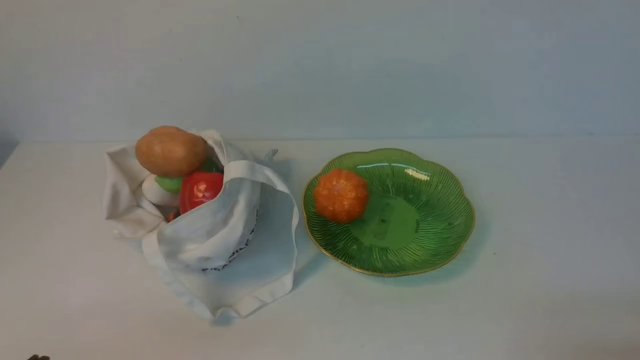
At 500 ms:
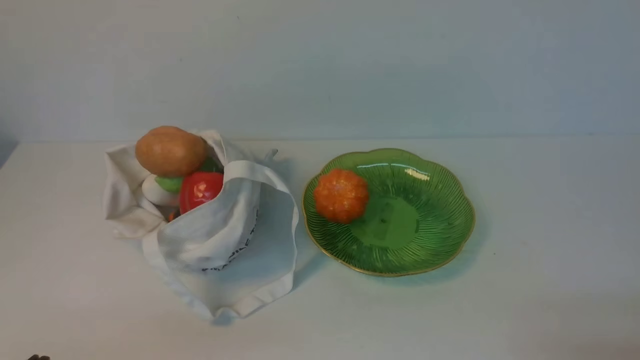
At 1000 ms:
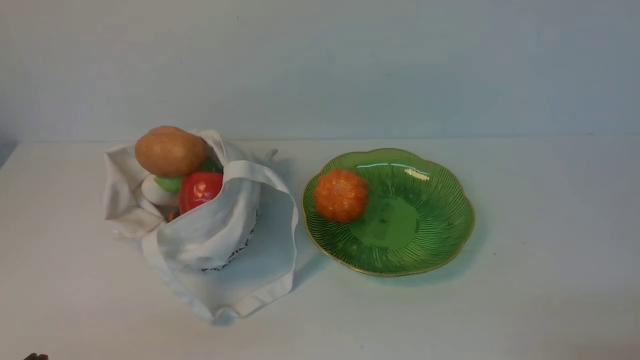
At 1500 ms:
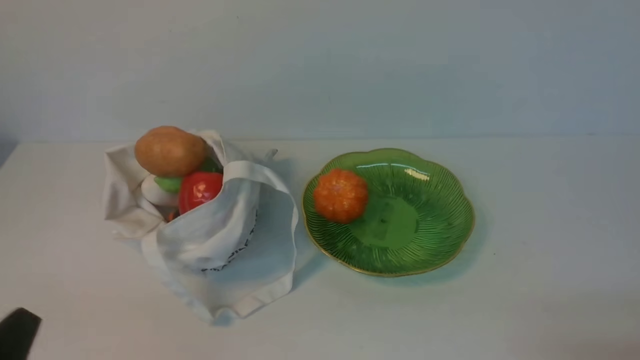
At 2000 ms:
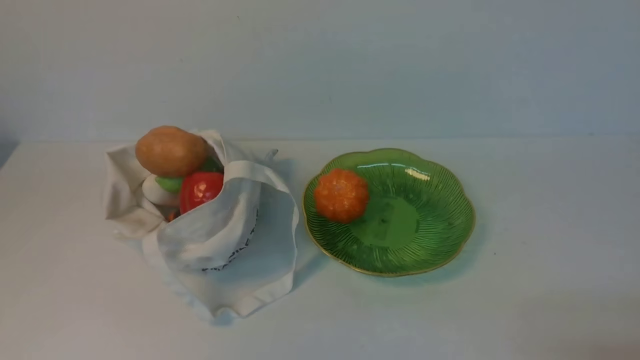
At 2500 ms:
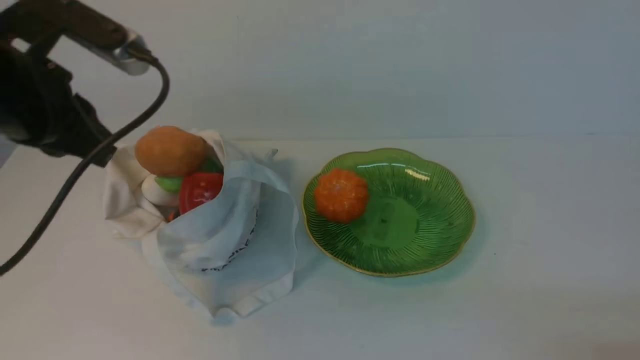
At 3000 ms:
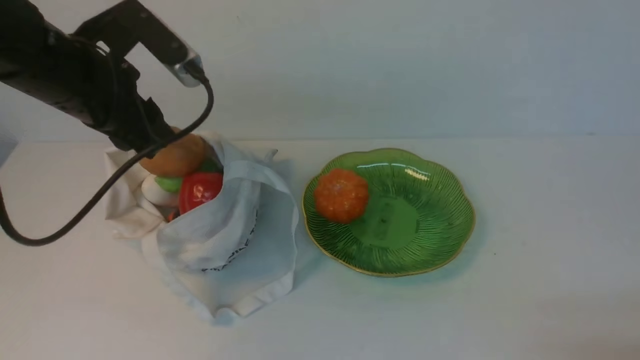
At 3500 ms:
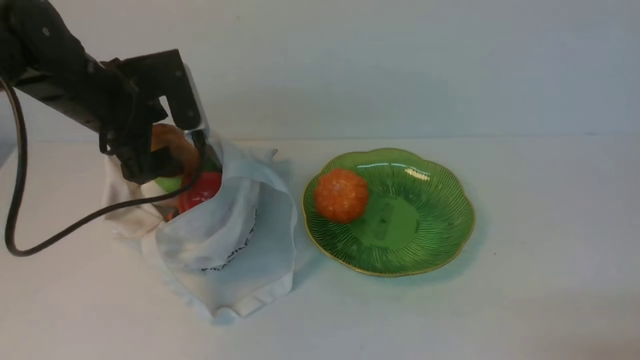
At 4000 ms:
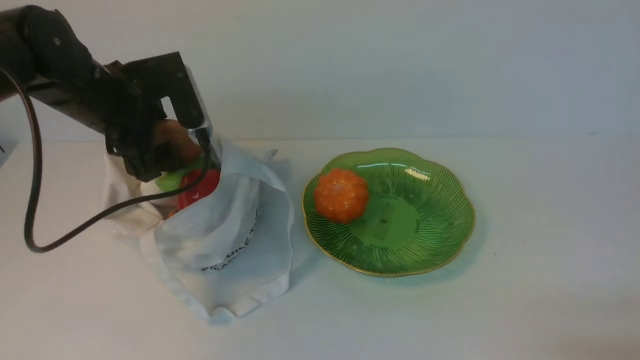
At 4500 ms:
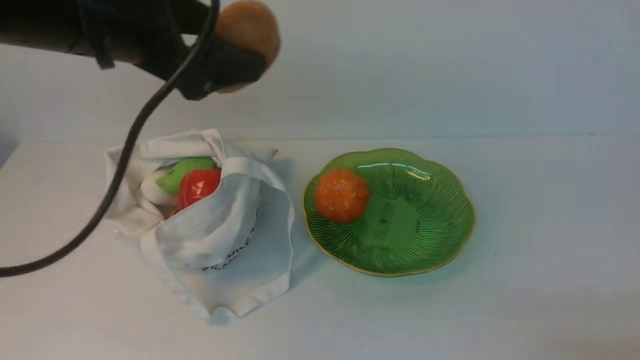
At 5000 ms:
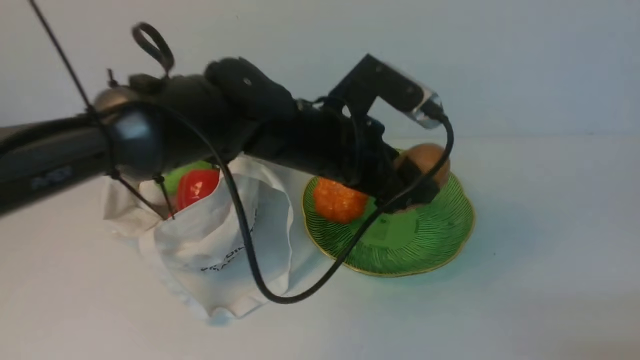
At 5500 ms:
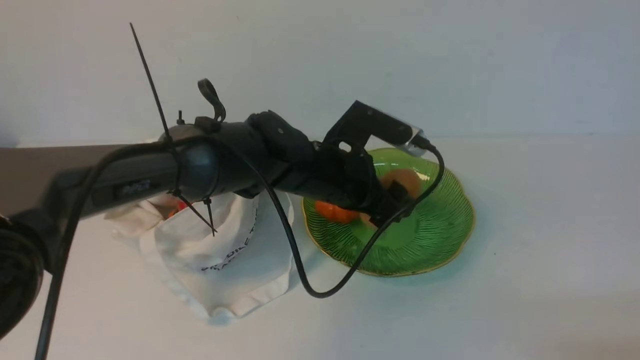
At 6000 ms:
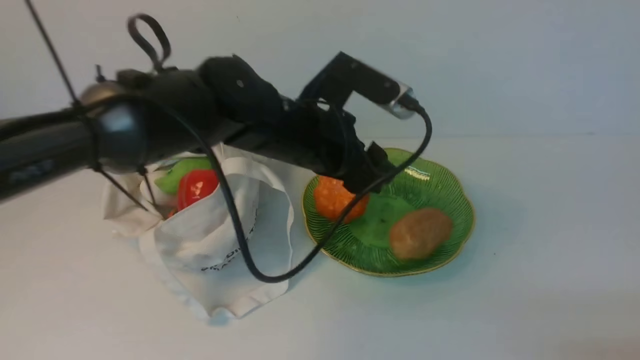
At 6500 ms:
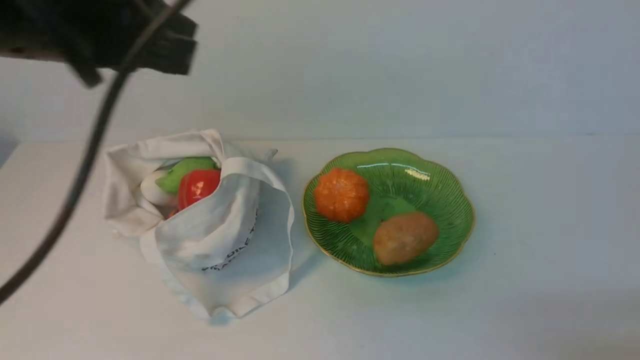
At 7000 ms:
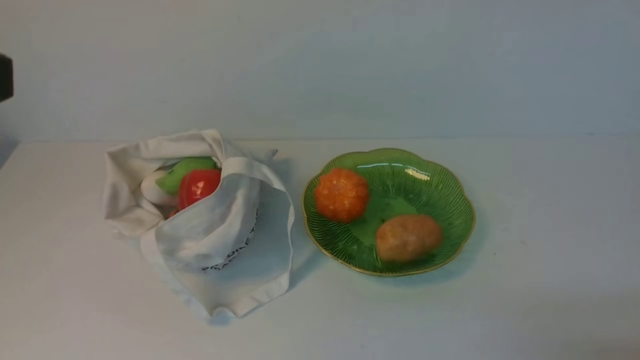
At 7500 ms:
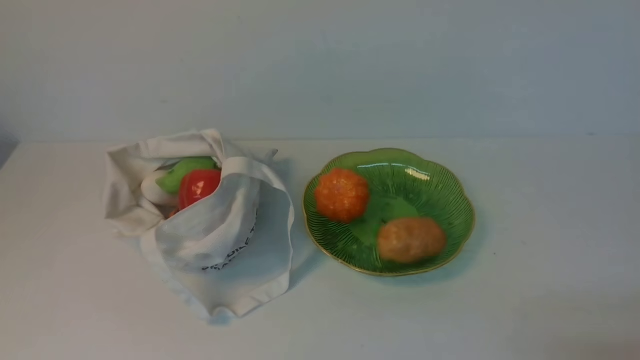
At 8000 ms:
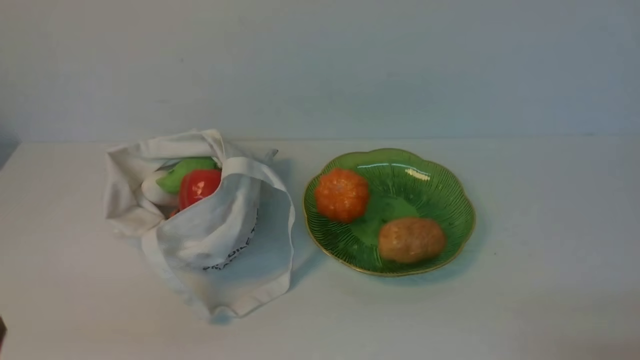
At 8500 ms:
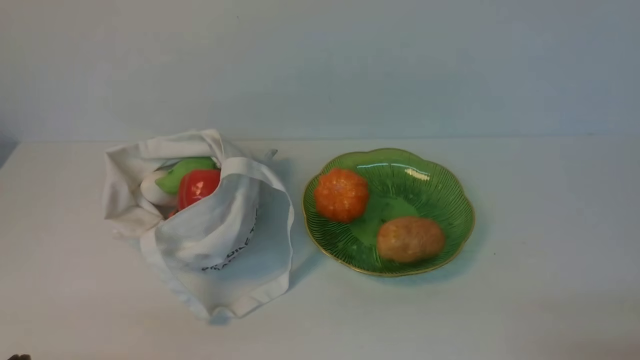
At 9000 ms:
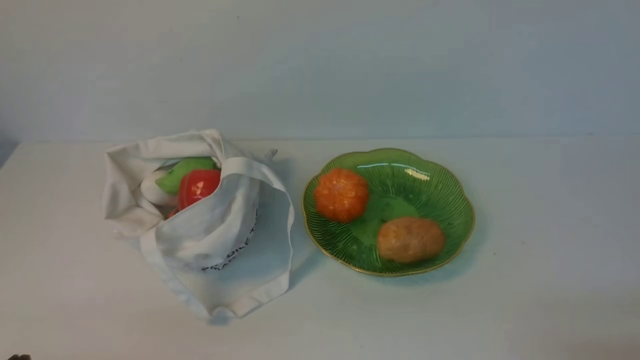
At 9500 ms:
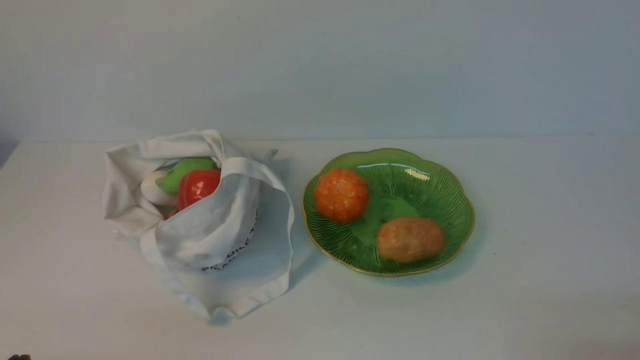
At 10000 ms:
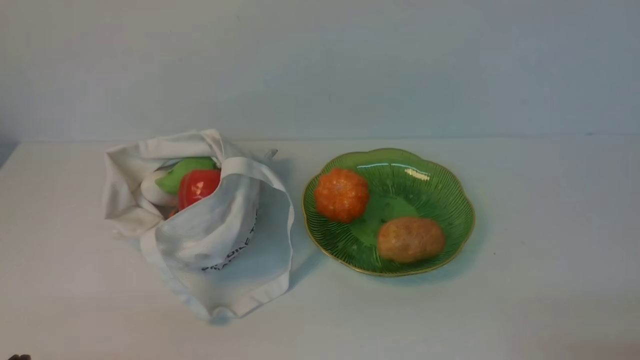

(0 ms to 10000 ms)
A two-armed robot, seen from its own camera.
Task of the whole recording: take vegetables from cloth bag on white table place on plate.
Step, 0 ms - 3500 ms: Grasp the potato with left gripper.
Step, 4000 ms - 5500 ms: Place the potato on the plate with left gripper.
2000 ms - 4000 ms: The left gripper heads forward, covering roughly 30 cm, and opens.
4000 ms - 6000 ms: The left gripper travels to the right by some 20 cm.
6000 ms - 8000 ms: The left gripper shifts about 40 cm backward and to the left, and closes.
